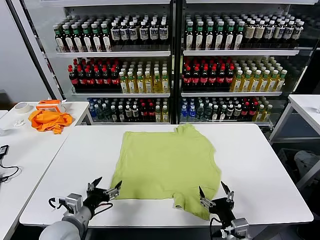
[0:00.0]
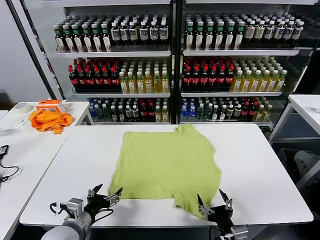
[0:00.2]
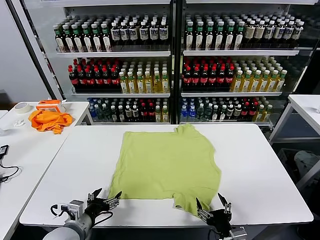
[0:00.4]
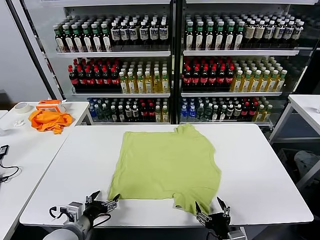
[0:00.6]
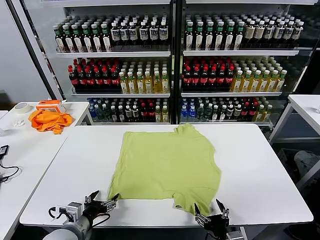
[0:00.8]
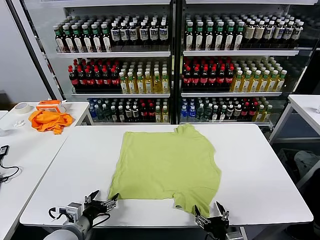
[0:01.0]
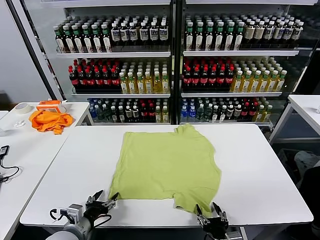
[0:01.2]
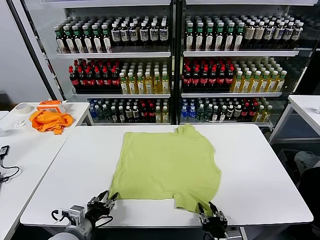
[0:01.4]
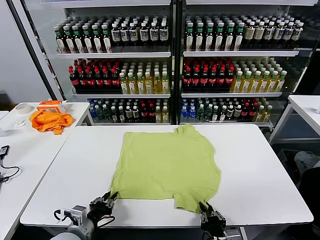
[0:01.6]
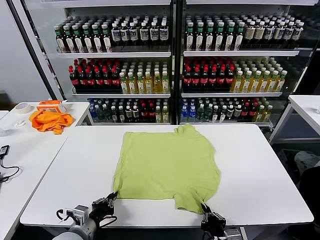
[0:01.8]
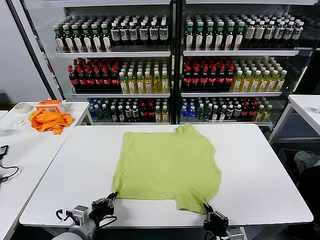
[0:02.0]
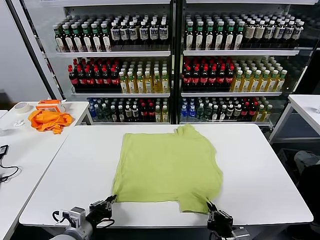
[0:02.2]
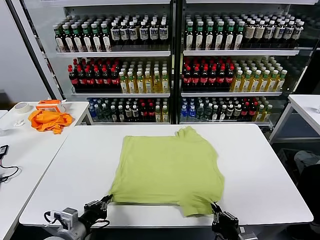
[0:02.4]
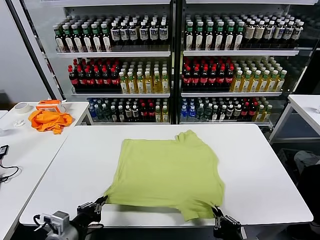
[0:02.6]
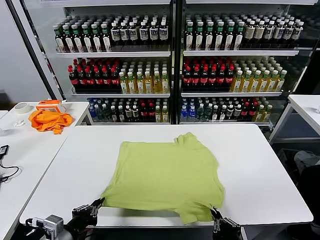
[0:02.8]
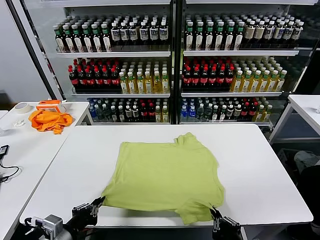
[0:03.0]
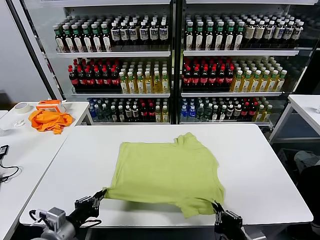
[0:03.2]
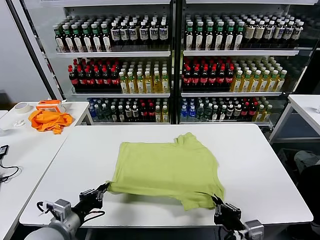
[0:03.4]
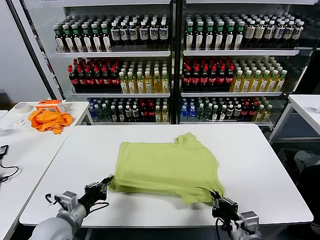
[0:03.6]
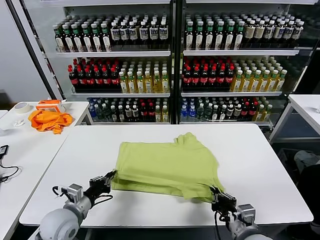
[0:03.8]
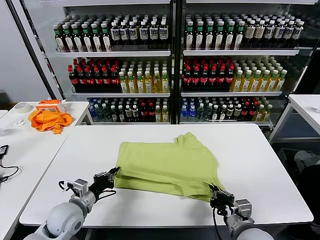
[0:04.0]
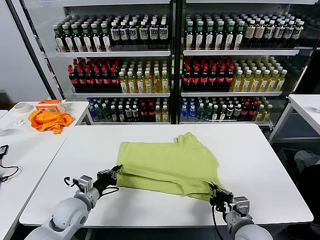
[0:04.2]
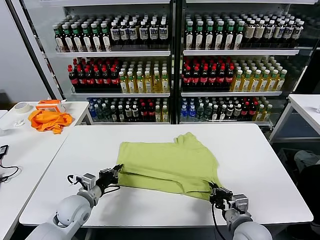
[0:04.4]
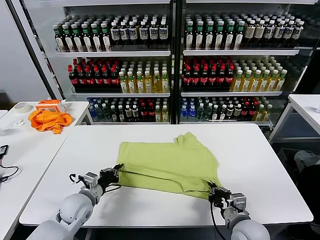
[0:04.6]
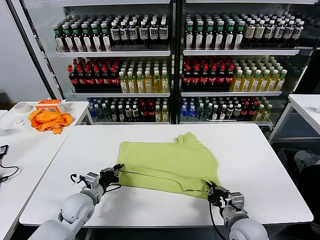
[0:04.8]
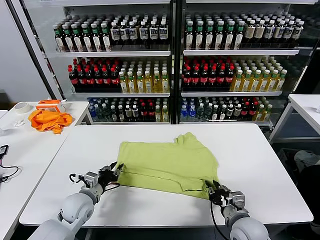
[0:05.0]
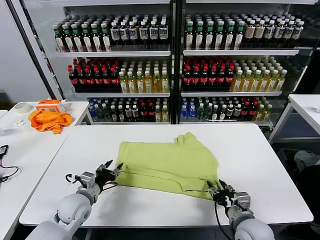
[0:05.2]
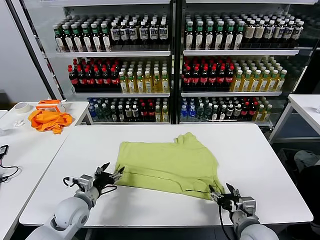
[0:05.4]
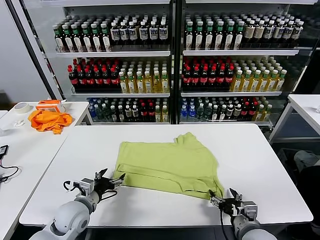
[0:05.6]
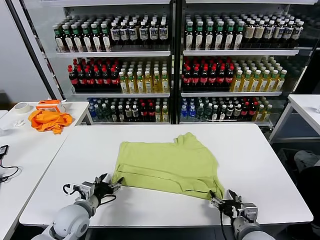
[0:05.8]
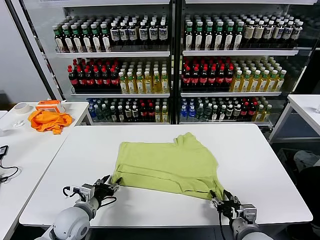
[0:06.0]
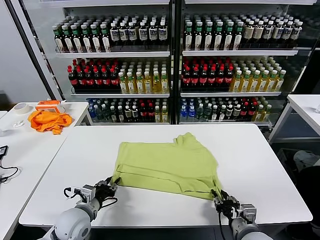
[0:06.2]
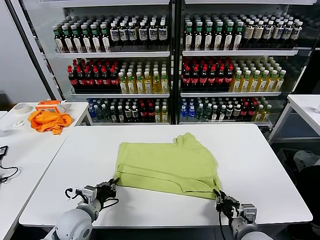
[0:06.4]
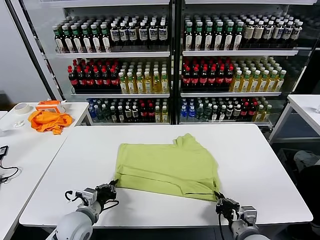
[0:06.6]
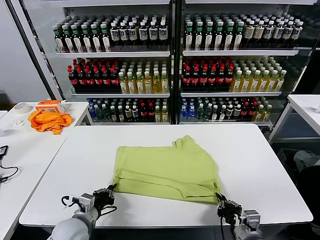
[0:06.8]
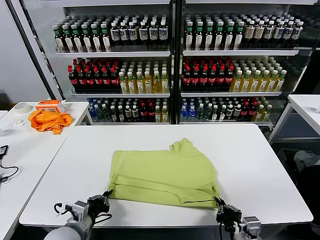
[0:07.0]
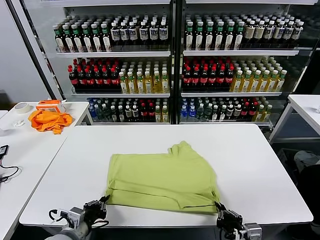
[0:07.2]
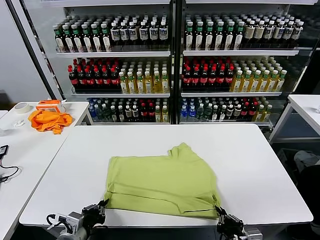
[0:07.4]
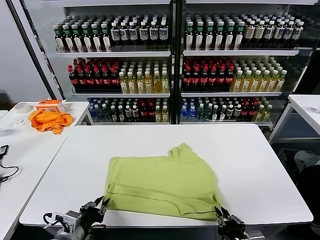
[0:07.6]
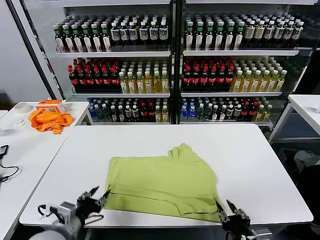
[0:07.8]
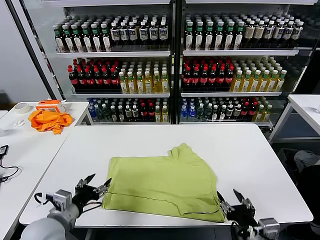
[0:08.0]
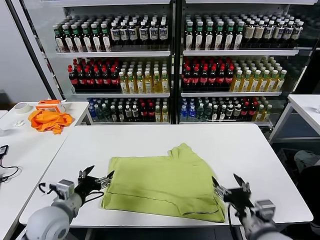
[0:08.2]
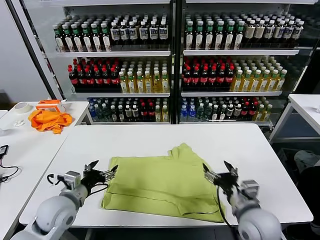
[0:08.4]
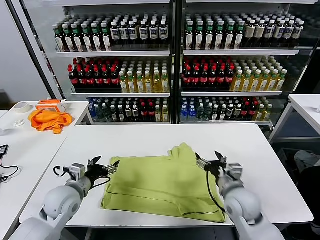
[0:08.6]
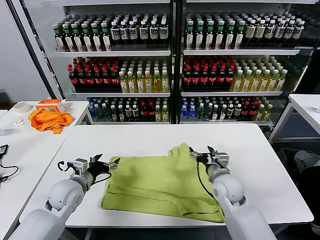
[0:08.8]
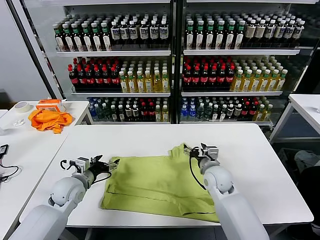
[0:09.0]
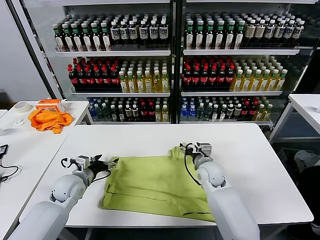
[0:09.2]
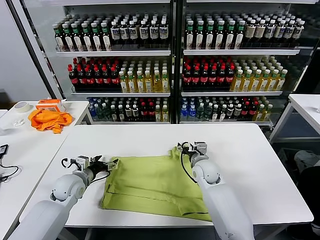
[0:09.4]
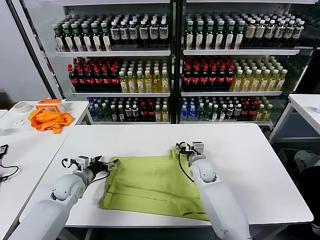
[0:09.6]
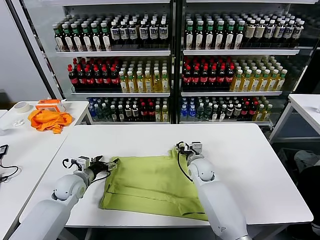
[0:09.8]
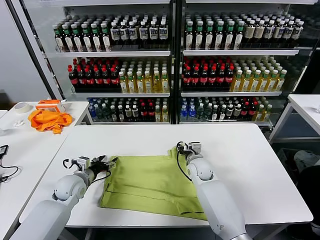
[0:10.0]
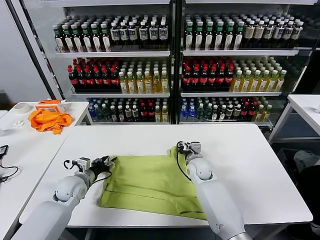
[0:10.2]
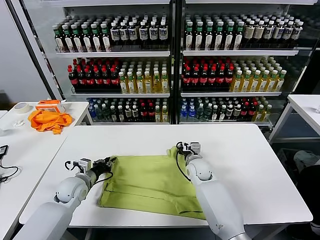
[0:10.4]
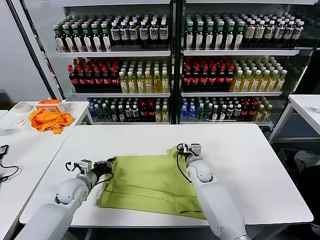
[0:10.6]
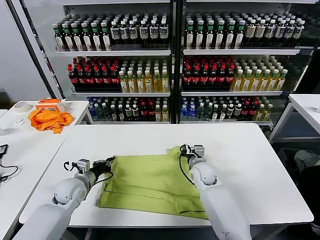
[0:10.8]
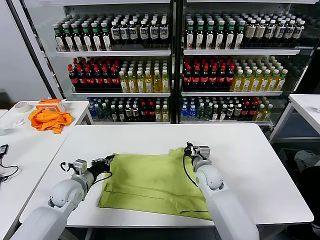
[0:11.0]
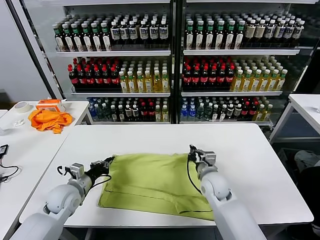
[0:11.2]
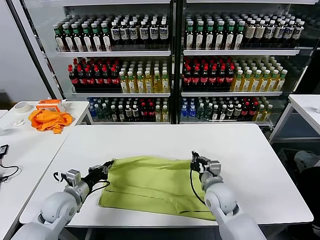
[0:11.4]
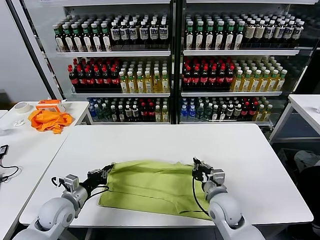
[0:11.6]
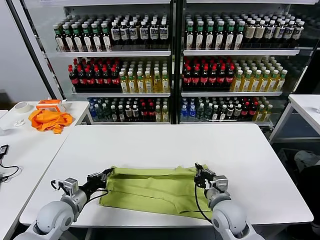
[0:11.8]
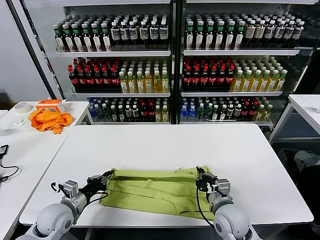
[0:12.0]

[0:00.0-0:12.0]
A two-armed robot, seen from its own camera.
Task of the whole recording: fold and organize the clothes.
Step, 0:00.0 to 0:01.8: use both grippers simultaneously to clamp the lower edge of the clothing fabric.
Step, 0:02.0 to 0:05.2: use both grippers to drag the lower edge of the fabric forward and fold it over the upper edge.
Step, 0:05.4 to 0:07.6: Drag the clothes downward with both gripper.
Step, 0:07.8 to 0:10.6: use both grippers simultaneously to clamp the upper edge of the clothing fabric.
0:01.6 to 0:03.0: The grippers both shift upward by about 10 cm.
0:03.0 to 0:04.4: The two grippers go approximately 15 cm forward and downward.
0:04.4 to 0:06.0: The right gripper opens its fingers. The left gripper is displaced backward by some 5 cm, and opens its fingers.
0:06.0 to 0:07.6: The grippers both shift backward and upward by some 10 cm. The left gripper closes and opens again, while the right gripper closes, then opens again.
0:07.6 to 0:09.0: The left gripper goes approximately 20 cm forward, and opens its fingers. The right gripper goes roughly 30 cm forward, and opens up.
0:09.0 to 0:10.4: The right gripper ends up roughly 5 cm from where it was, and closes. Meanwhile the left gripper closes.
0:10.4 to 0:12.0: The right gripper travels backward by about 20 cm, while the left gripper is displaced backward by roughly 10 cm.

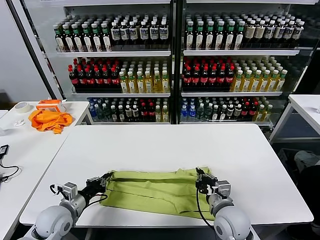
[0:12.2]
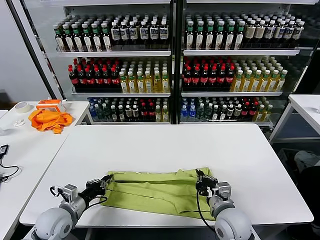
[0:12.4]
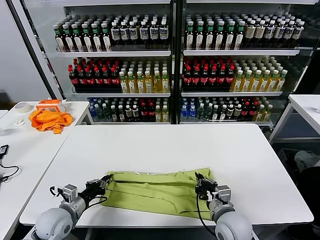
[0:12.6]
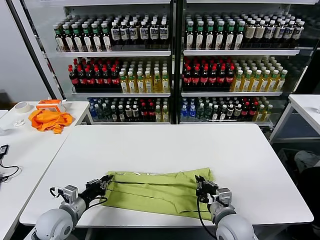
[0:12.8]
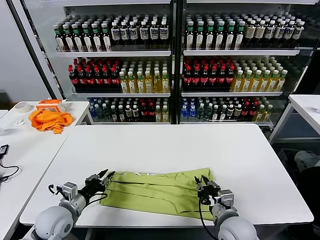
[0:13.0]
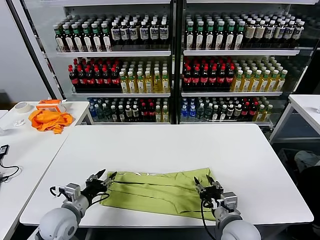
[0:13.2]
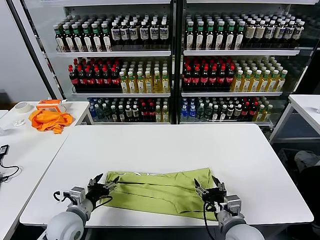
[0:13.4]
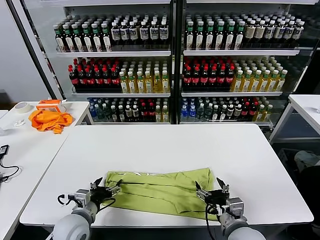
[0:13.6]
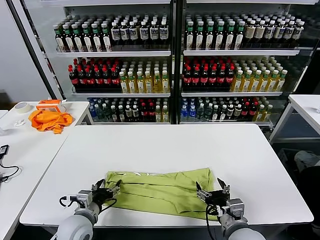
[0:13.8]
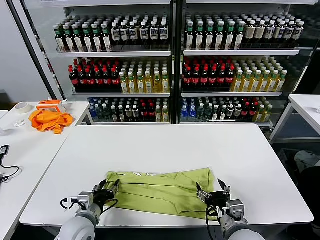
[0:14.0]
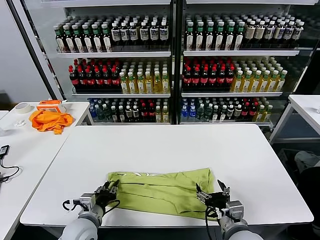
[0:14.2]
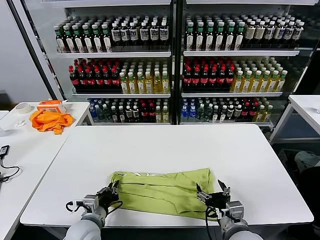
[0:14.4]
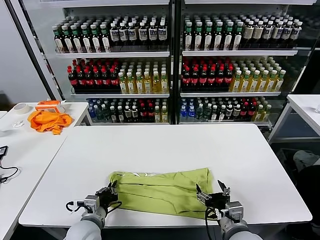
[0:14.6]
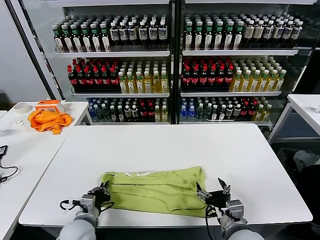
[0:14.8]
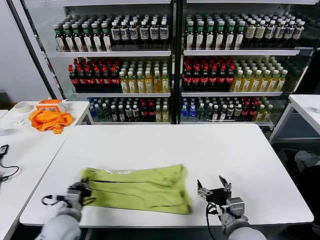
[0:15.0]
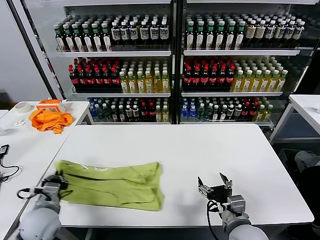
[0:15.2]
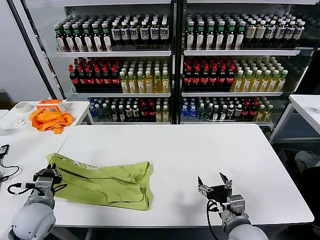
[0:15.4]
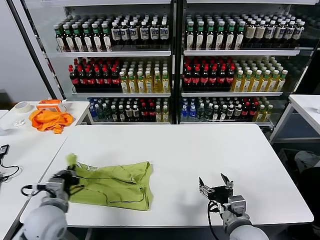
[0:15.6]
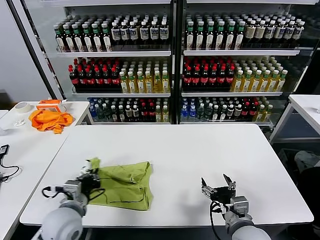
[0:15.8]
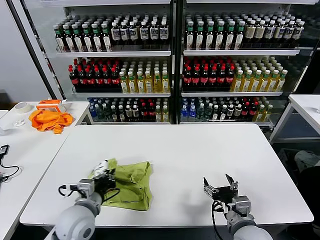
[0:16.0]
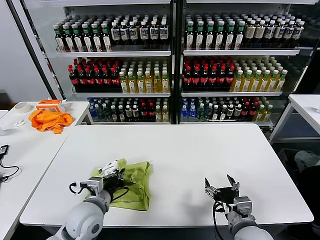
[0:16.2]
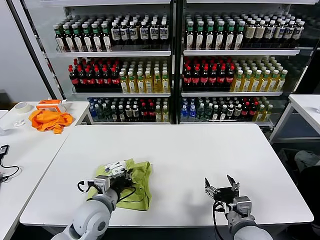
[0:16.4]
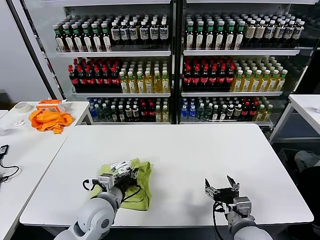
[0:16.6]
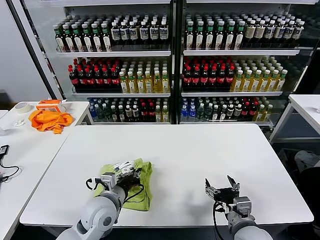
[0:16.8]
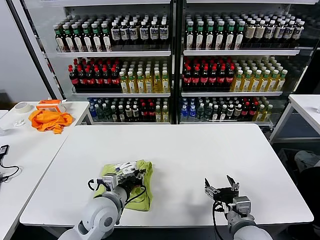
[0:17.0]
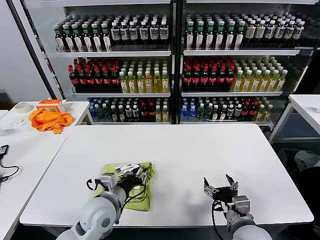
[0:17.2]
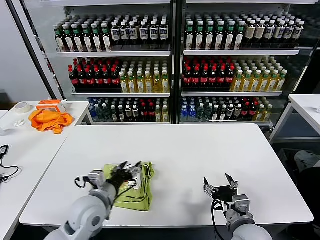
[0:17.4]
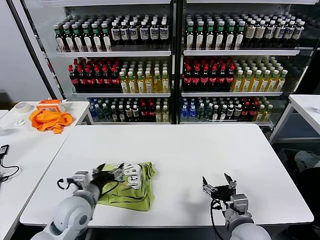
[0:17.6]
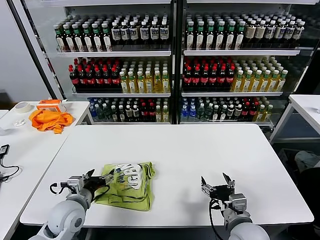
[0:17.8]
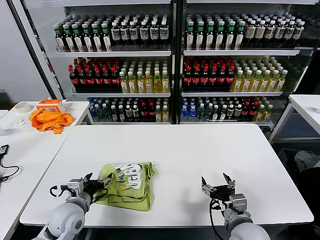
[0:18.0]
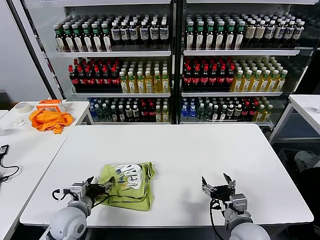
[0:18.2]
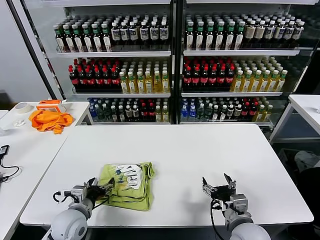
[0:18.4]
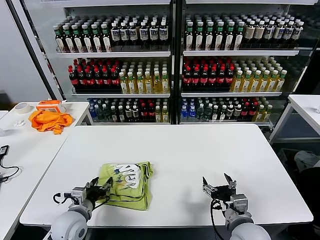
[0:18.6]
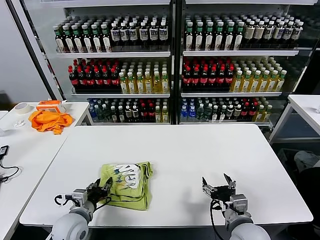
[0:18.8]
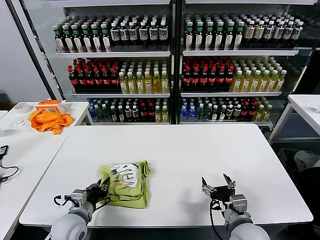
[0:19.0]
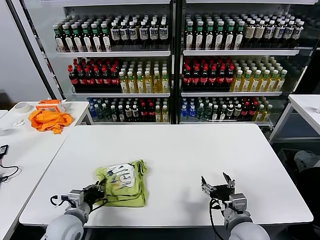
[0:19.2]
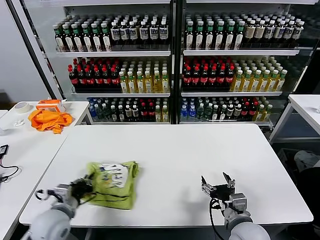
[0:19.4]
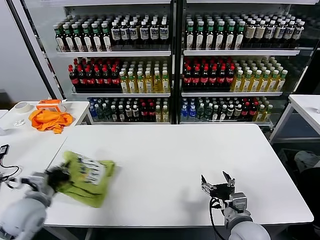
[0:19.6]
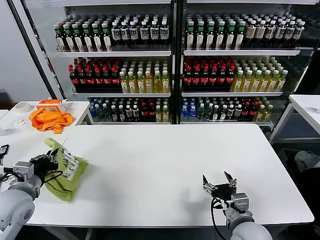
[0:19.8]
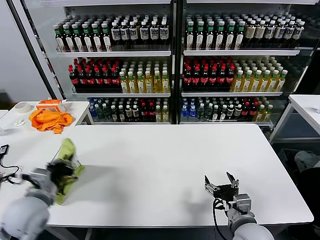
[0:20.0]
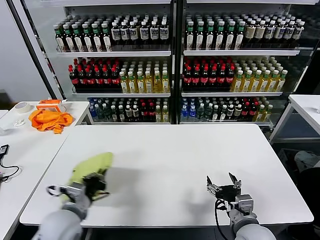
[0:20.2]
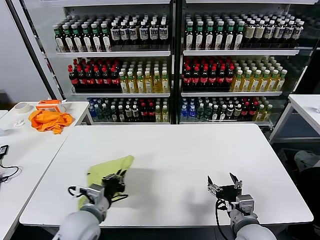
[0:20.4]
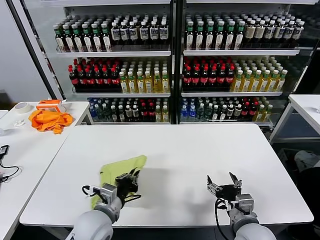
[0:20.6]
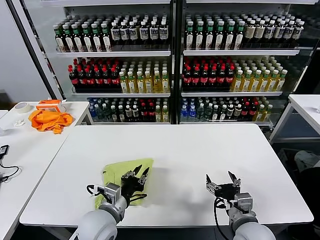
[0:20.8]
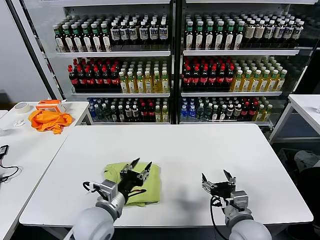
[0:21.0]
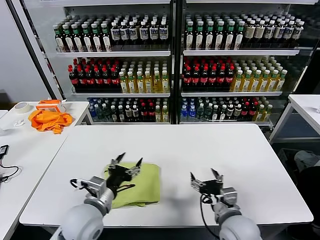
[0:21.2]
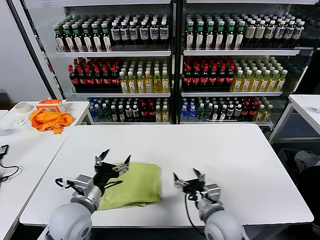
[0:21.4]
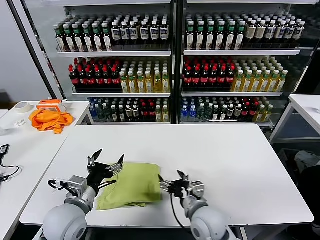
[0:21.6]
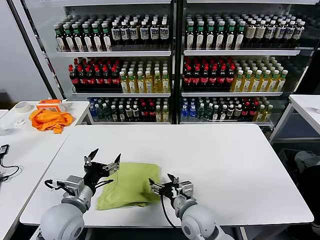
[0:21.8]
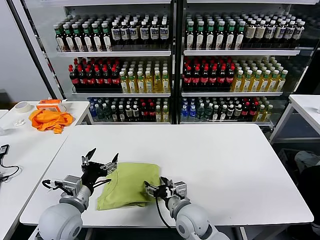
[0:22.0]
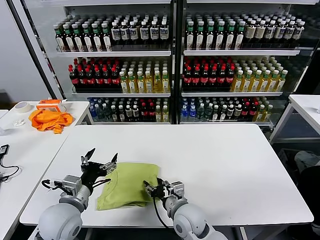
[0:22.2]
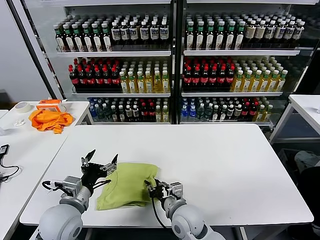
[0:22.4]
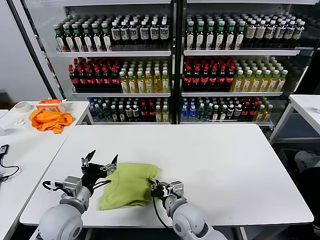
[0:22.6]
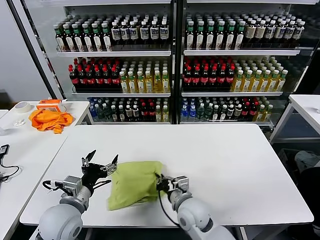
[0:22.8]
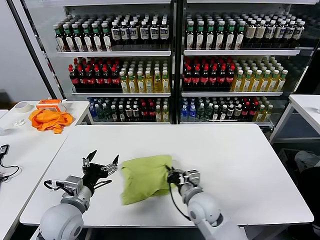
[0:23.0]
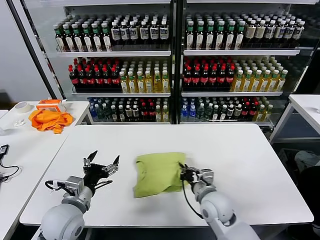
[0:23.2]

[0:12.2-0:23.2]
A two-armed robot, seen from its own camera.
Task of the whole recording: fold and organize the clothes.
Step, 0:13.2 to 0:17.2: use the left gripper to clamp the left edge of the fabric.
Step, 0:17.4 to 0:20.8: use the left gripper to drag the left edge of the fabric to the left and folds it over the right edge.
0:12.2 to 0:13.8: The right gripper goes about 5 cm backward, and opens; the left gripper goes roughly 10 cm to the right, and opens up.
0:13.8 to 0:15.4: The left gripper shifts roughly 10 cm to the left and upward, and closes.
0:15.4 to 0:17.0: The left gripper goes some 15 cm to the right.
0:17.0 to 0:18.4: The left gripper shifts about 10 cm to the left and downward, and opens its fingers.
0:18.4 to 0:20.0: The left gripper is displaced upward and to the left by about 10 cm, and closes its fingers.
0:20.0 to 0:21.6: The right gripper heads to the left and forward, covering some 10 cm. The left gripper moves to the right, about 10 cm, and opens its fingers.
0:21.6 to 0:23.2: The right gripper ends up some 5 cm from where it was, and closes its fingers.
